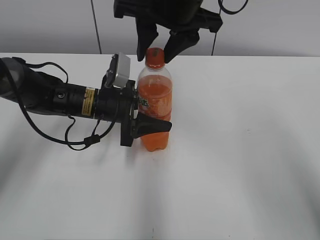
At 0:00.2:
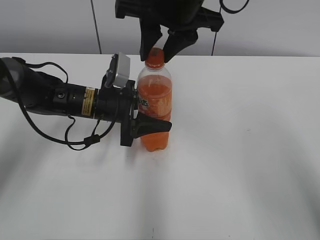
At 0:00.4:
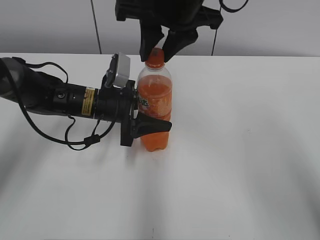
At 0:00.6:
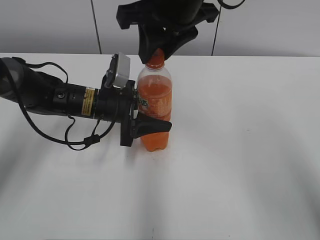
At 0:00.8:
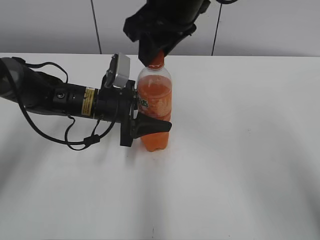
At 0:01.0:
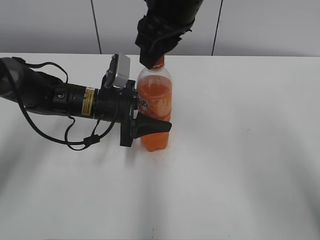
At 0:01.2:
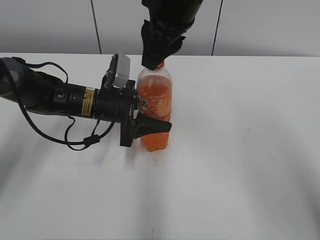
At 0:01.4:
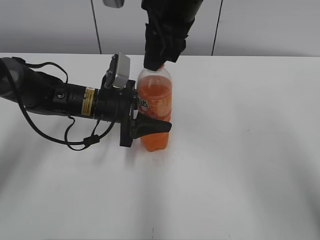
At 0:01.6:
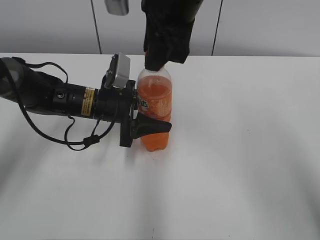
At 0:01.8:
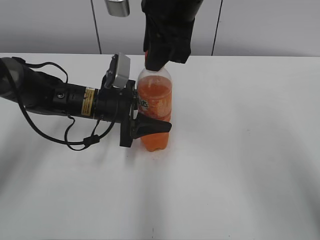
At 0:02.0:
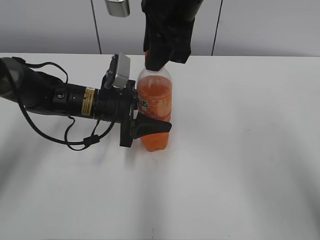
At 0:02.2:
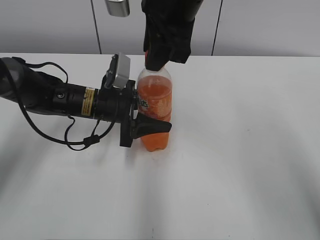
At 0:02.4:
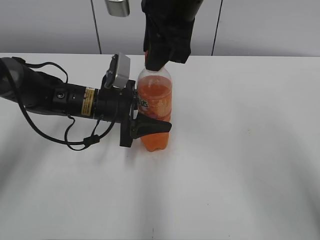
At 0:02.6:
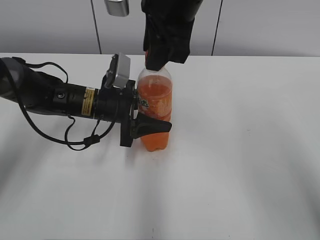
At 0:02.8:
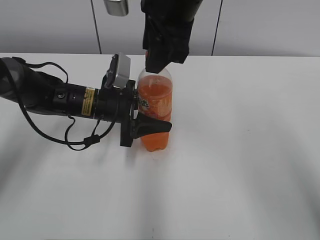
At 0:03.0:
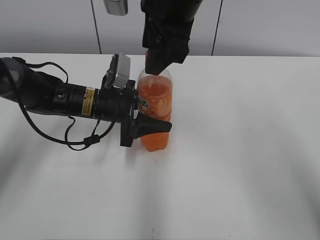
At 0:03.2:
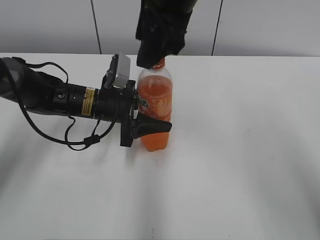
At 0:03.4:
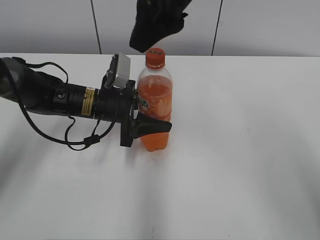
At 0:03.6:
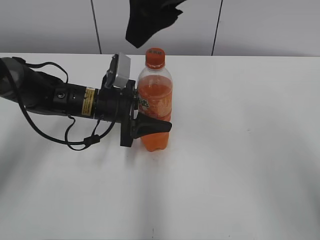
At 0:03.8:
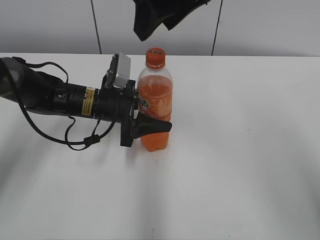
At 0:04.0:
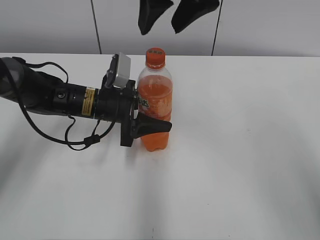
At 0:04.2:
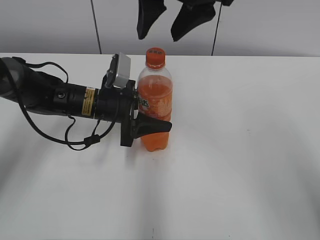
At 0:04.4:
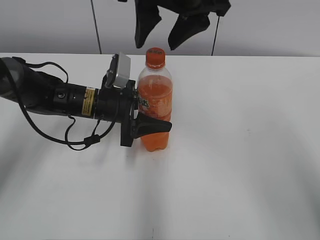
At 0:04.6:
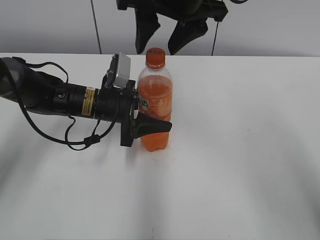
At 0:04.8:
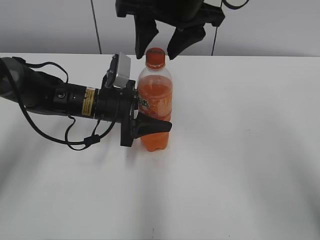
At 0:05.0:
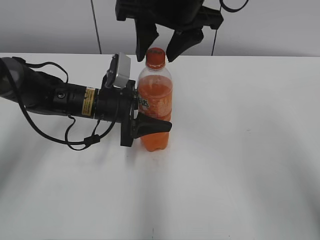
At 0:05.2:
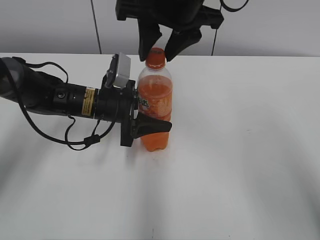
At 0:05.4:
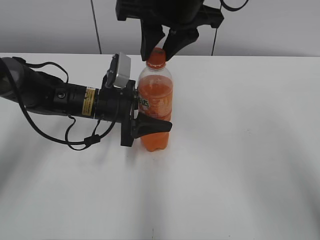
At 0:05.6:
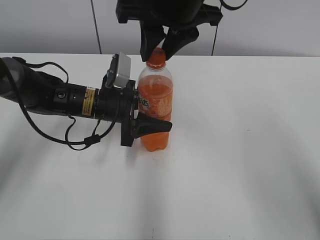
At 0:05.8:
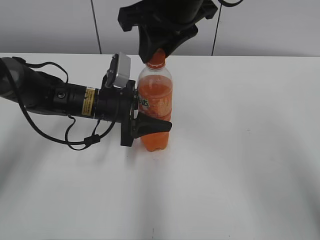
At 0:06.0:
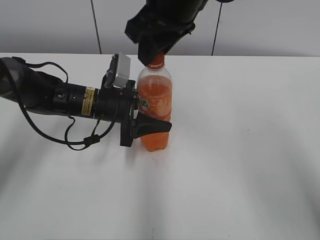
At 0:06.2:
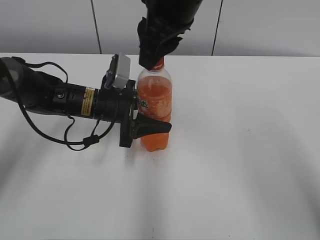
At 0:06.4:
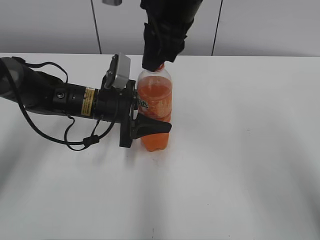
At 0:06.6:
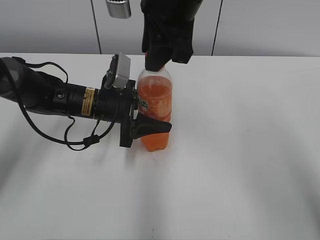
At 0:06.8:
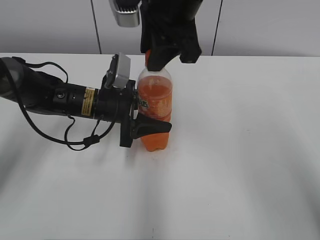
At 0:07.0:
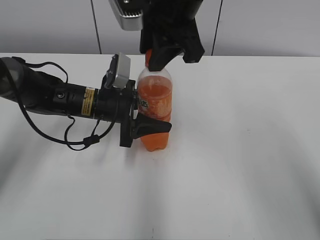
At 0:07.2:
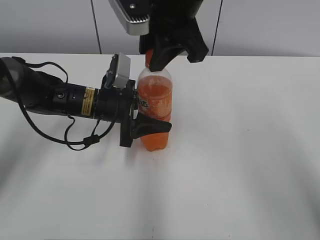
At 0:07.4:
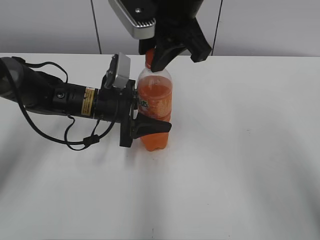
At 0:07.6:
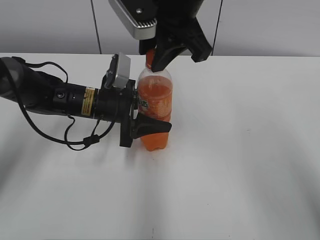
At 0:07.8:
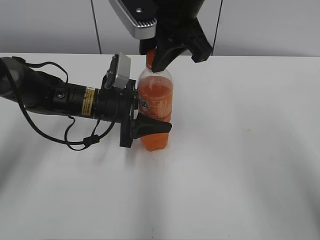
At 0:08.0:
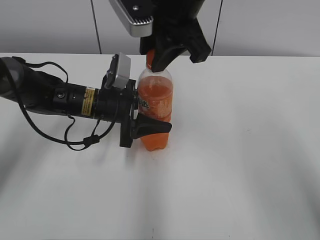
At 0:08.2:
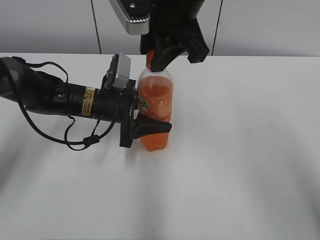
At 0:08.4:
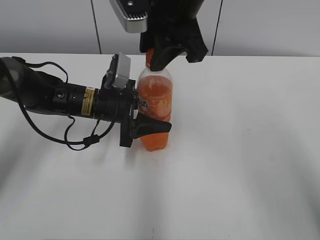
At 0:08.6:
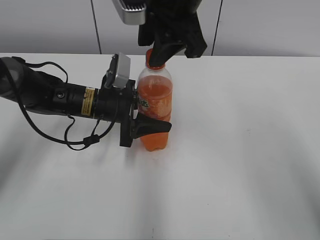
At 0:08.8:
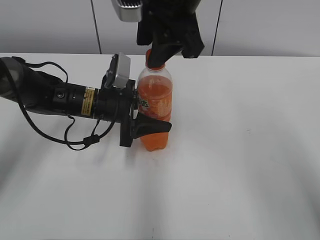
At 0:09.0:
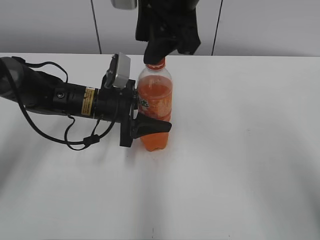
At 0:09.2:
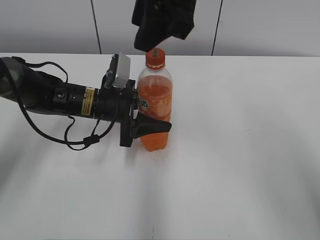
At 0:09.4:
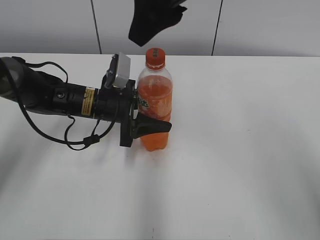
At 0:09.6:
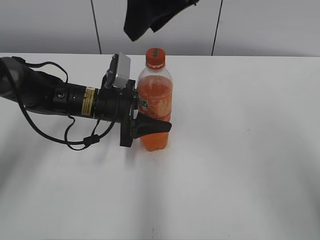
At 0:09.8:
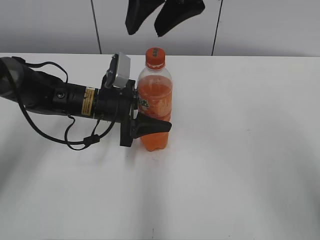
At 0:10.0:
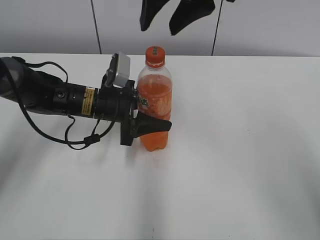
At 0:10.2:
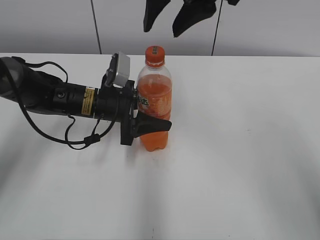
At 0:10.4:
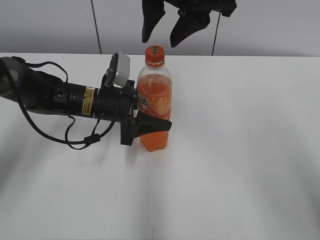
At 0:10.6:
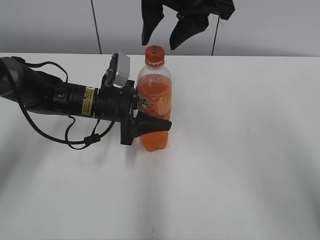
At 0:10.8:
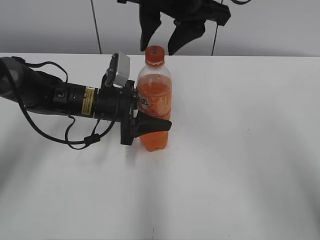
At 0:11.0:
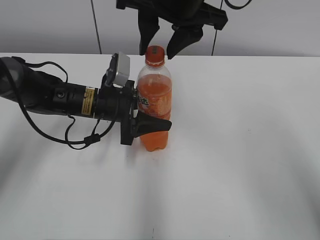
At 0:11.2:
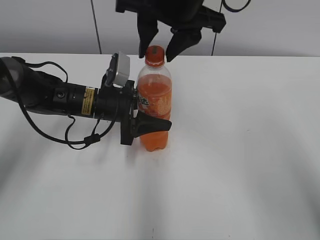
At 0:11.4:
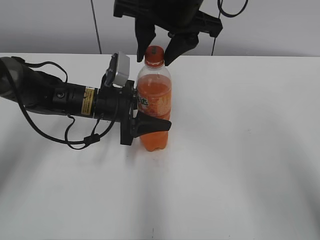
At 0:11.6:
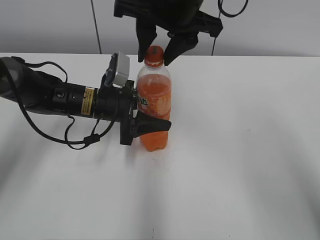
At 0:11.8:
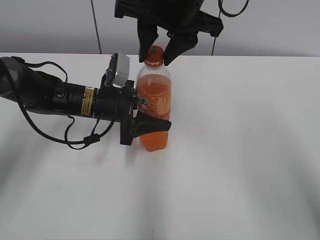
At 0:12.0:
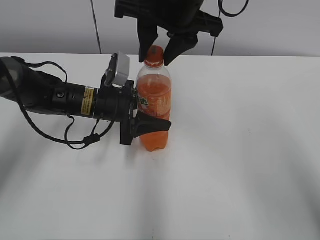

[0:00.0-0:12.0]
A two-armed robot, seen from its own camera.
0:00.0 to 0:01.6: The right gripper closes its fingers.
0:01.6 to 0:03.0: The right gripper opens its fingers.
0:04.4 to 0:06.0: The right gripper closes.
0:07.6 to 0:09.0: The right gripper opens.
0:10.4 to 0:12.0: The grippers stay close to where they were, moving slightly.

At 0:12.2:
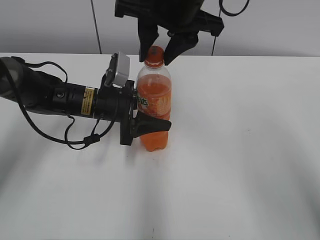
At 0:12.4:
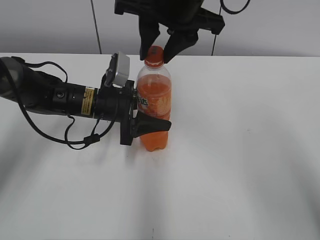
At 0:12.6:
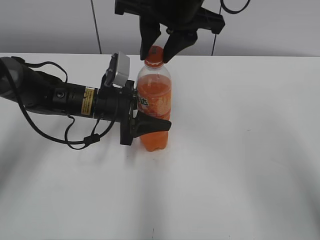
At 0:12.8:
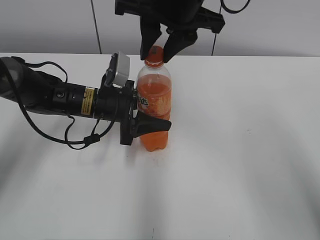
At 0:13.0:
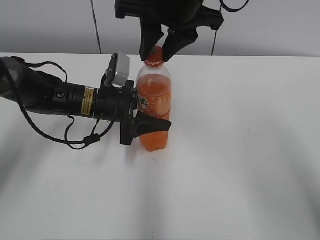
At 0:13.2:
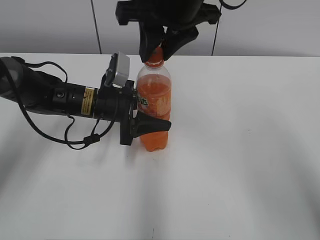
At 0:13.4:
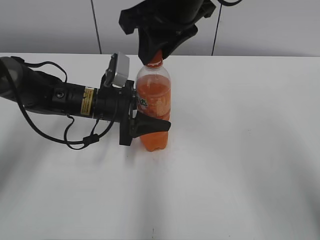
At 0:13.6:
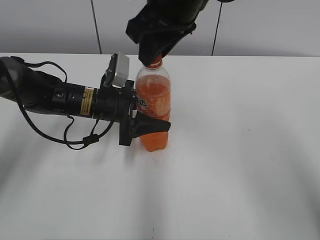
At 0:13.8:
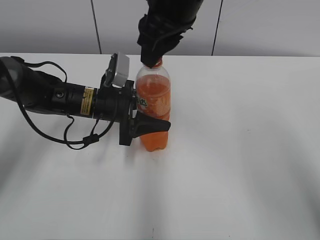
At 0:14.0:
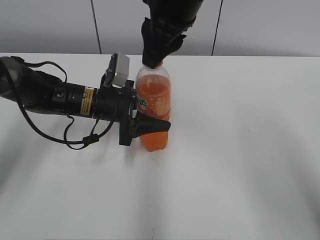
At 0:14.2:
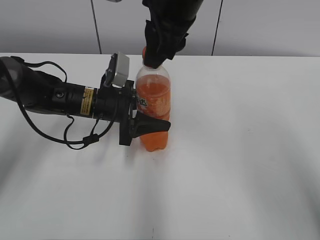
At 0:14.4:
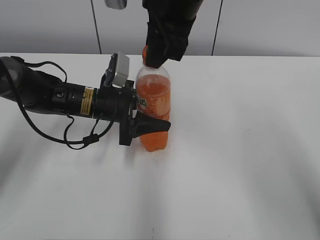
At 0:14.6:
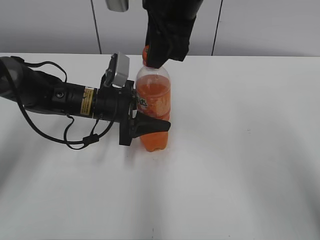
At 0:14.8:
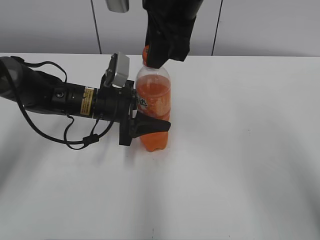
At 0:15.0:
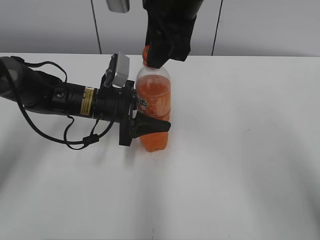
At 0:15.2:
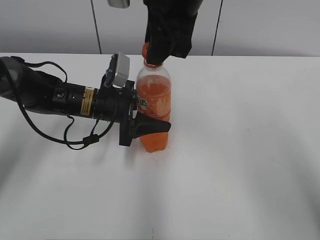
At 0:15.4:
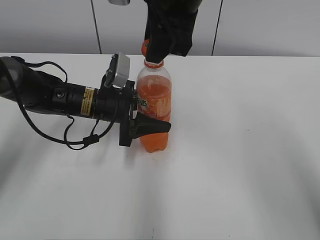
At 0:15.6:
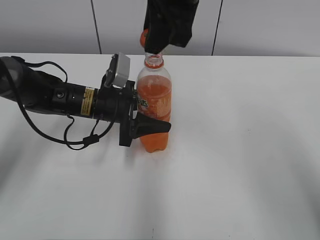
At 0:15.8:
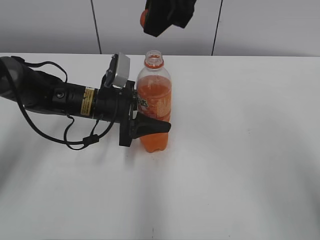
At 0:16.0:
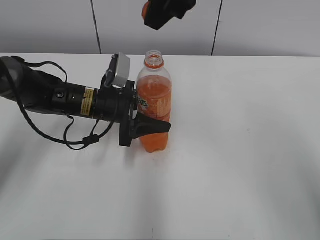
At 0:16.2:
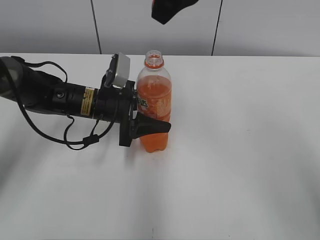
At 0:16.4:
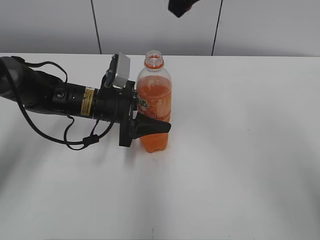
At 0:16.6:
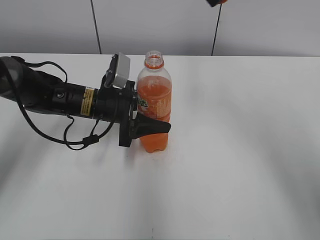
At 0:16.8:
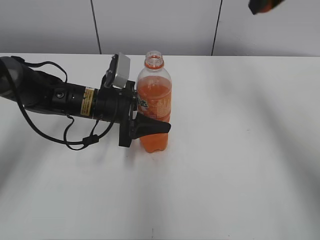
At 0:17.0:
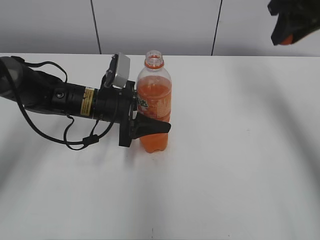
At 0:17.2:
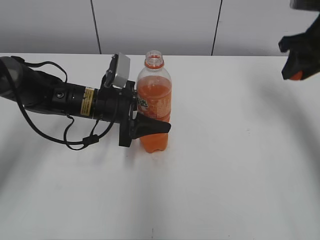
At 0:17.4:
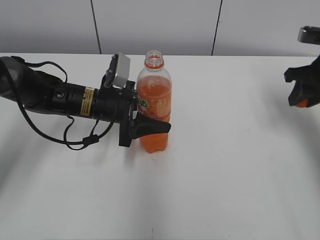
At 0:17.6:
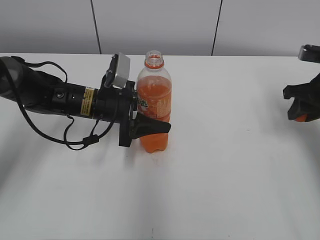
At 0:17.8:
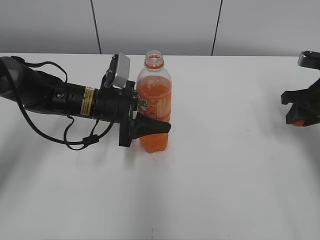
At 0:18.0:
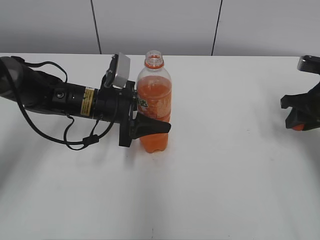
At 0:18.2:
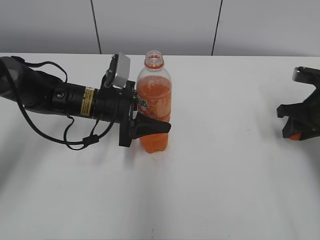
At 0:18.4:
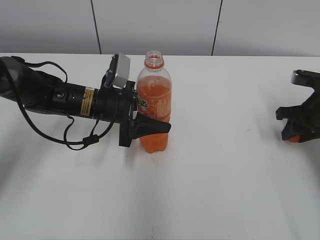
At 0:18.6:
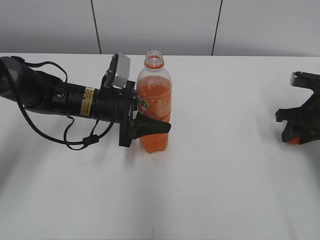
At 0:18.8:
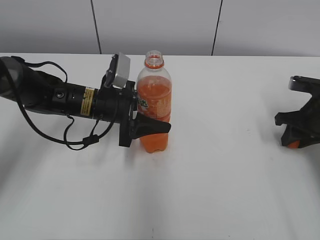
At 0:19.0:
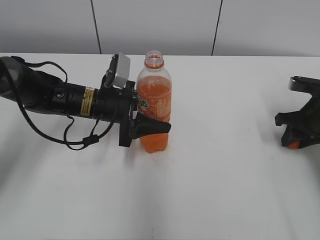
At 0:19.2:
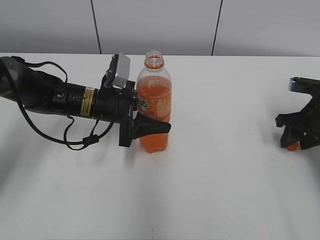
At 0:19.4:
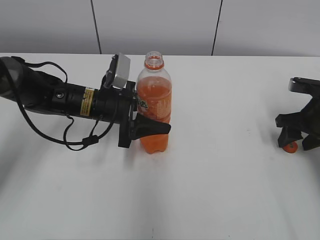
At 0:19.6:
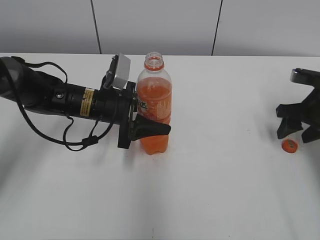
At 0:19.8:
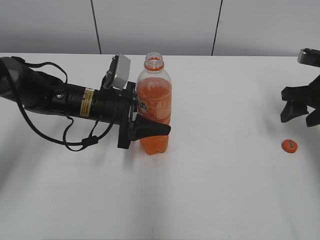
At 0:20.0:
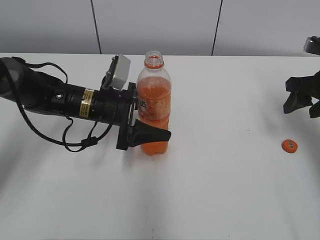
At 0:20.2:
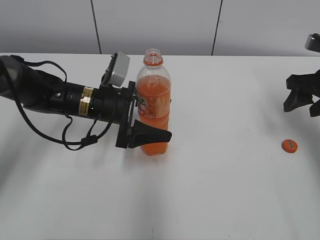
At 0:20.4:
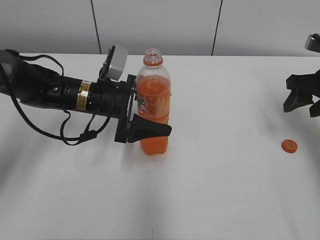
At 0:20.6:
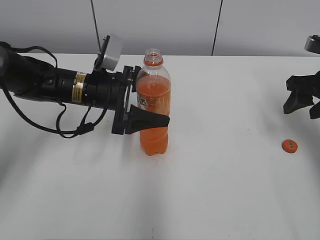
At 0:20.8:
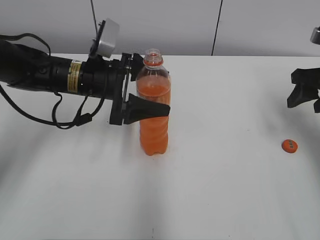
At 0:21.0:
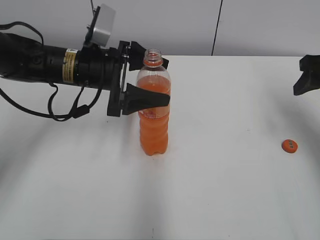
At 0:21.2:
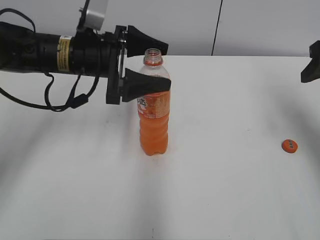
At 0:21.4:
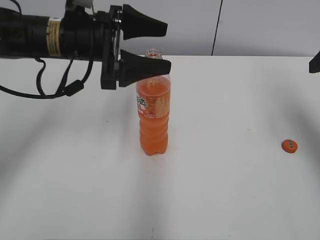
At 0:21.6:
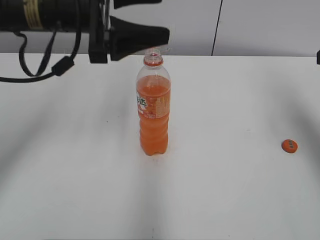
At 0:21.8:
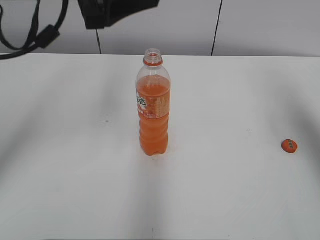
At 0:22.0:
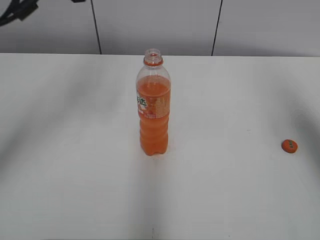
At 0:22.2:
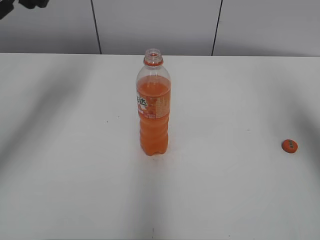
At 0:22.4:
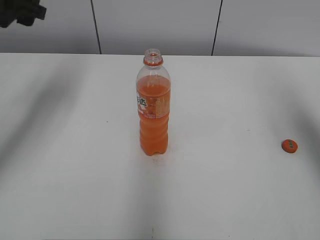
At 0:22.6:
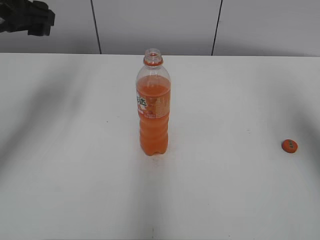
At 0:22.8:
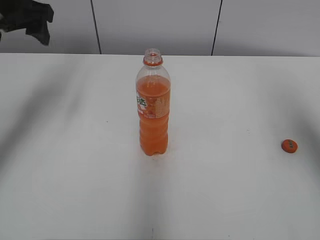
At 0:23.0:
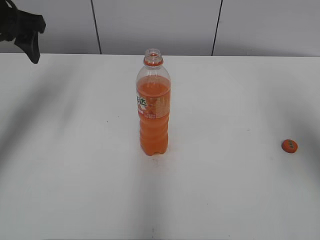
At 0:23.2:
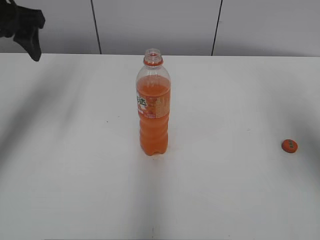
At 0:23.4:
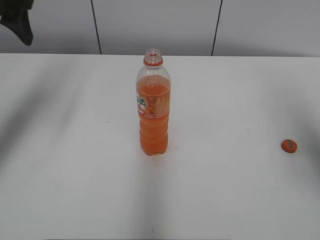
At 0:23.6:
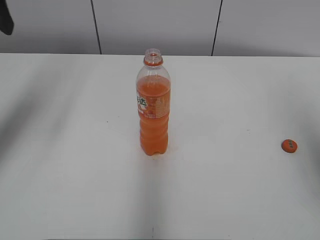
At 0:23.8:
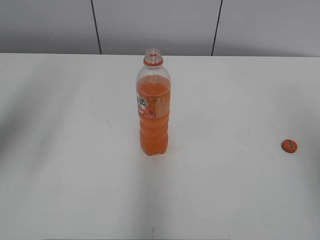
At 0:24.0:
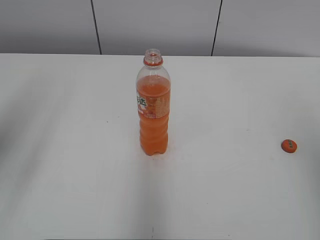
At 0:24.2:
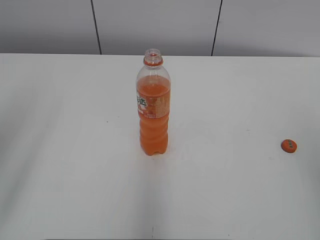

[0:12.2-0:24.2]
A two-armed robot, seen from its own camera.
Step, 0:12.2 to 0:15.2: Unscrew the bottle cap with the right gripper while holding the bottle with the left gripper.
Step, 0:15.4 to 0:19.4: Place the bottle cap on the table with the right gripper.
Step, 0:19.6 to 0:20.4: Place the bottle on the table with the left gripper.
0:15.2 to 0:16.6: The right gripper goes approximately 10 cm to the right and upward.
0:16.6 to 0:18.2: The right gripper shifts roughly 30 cm downward and to the right.
0:18.2 to 0:19.8: The right gripper opens its fingers.
0:19.8 to 0:21.2: Both grippers travel together upward, approximately 10 cm. The left gripper opens up.
0:21.2 to 0:22.6: The left gripper heads to the left and upward, covering some 15 cm. Meanwhile the right gripper travels upward and backward by some 10 cm.
0:22.6 to 0:24.2: The grippers both shift backward by some 20 cm.
